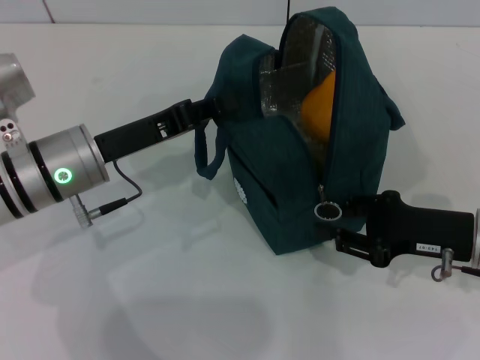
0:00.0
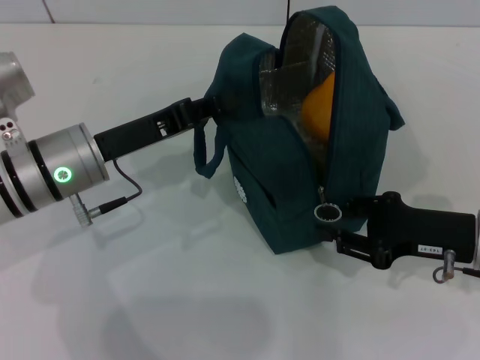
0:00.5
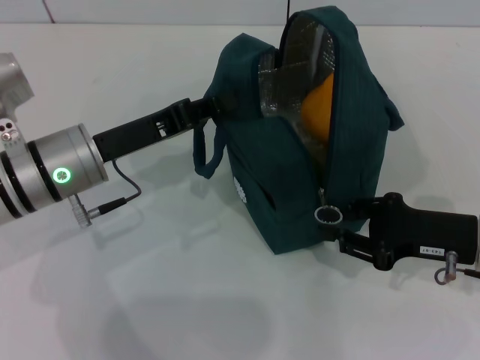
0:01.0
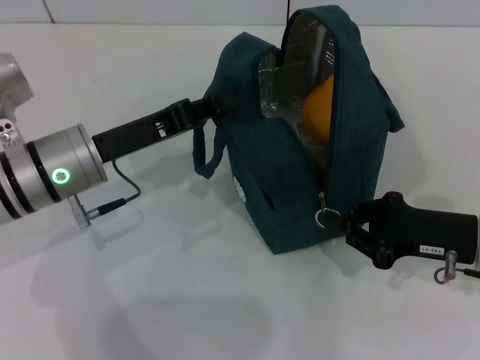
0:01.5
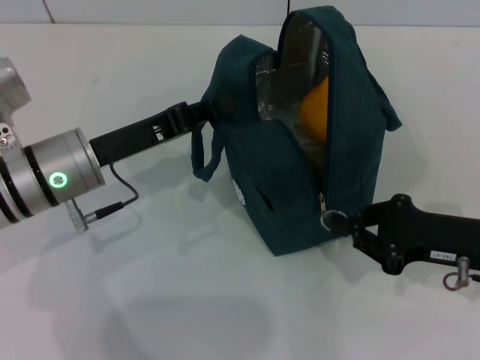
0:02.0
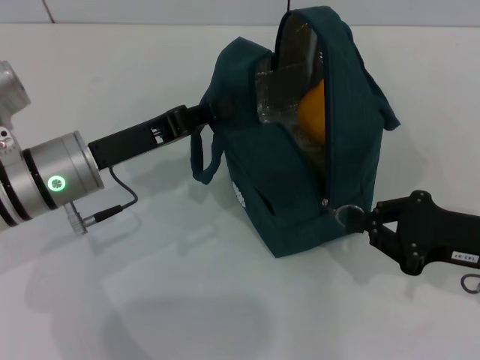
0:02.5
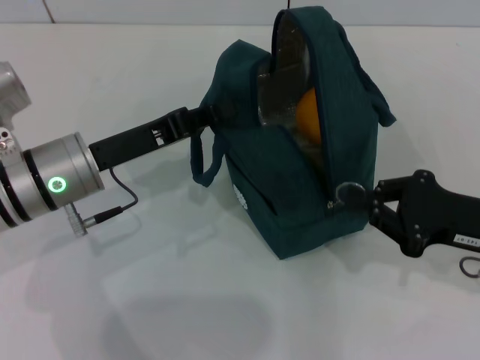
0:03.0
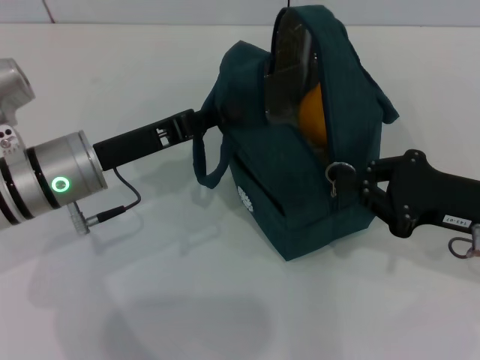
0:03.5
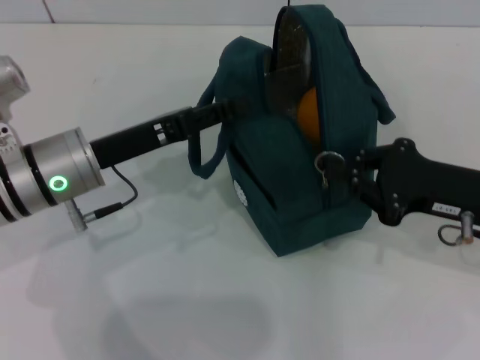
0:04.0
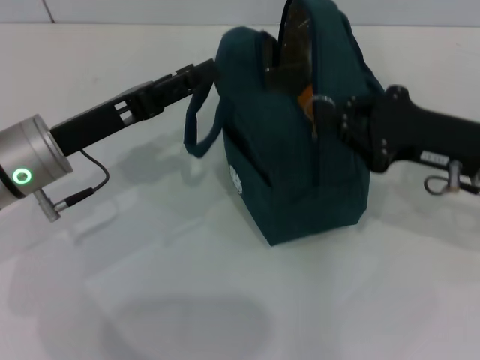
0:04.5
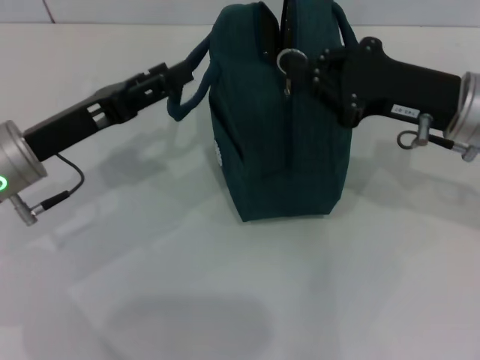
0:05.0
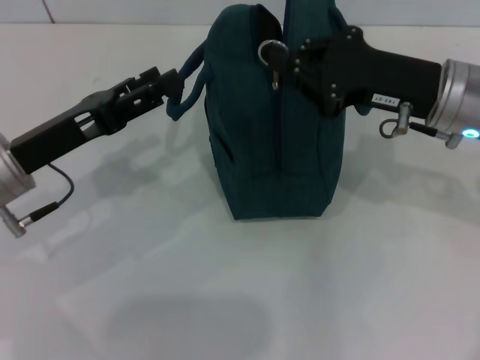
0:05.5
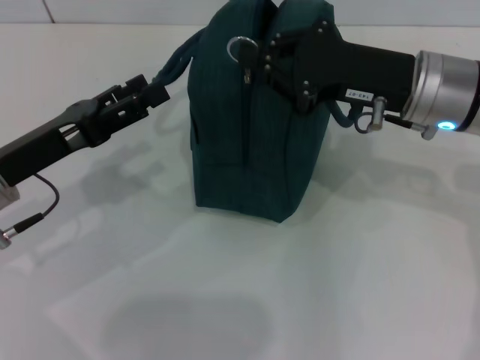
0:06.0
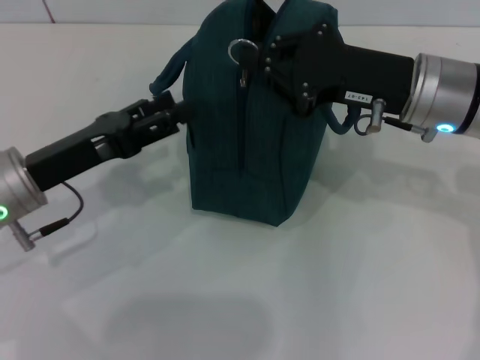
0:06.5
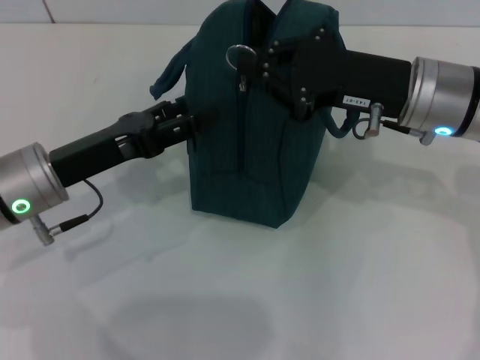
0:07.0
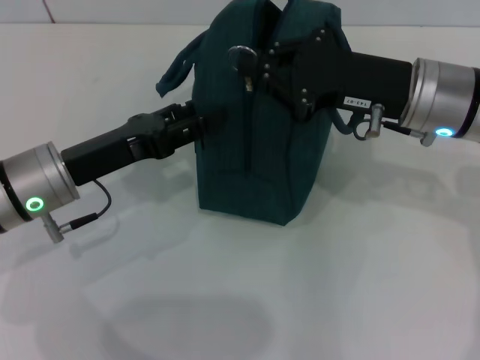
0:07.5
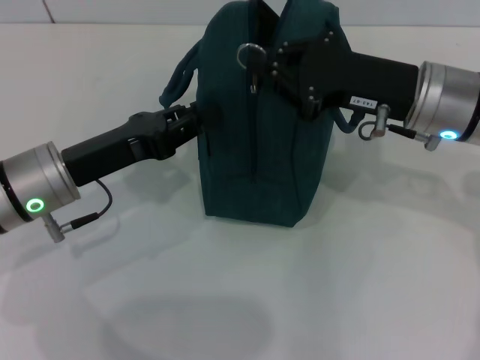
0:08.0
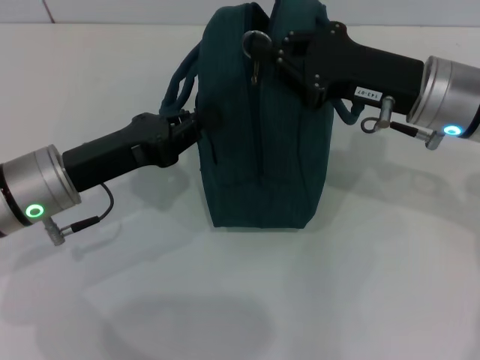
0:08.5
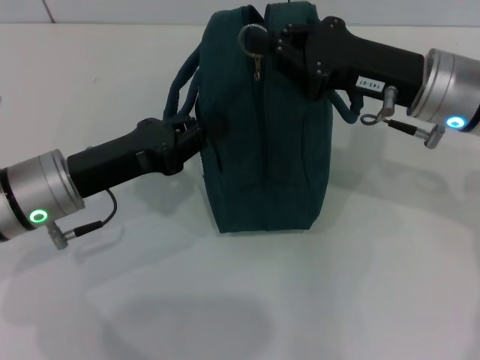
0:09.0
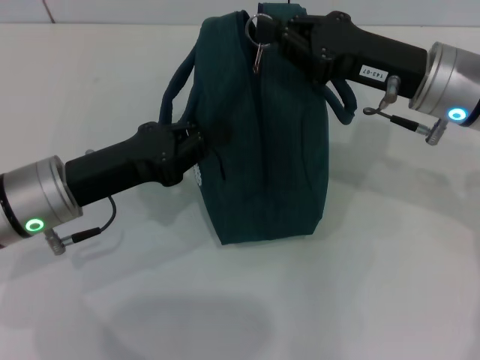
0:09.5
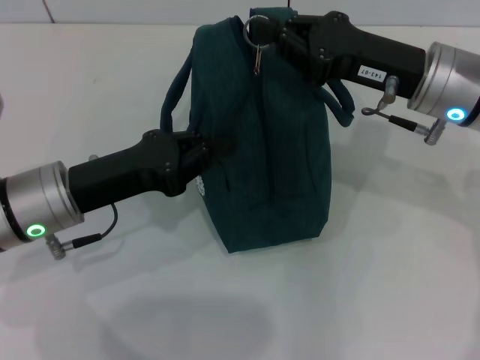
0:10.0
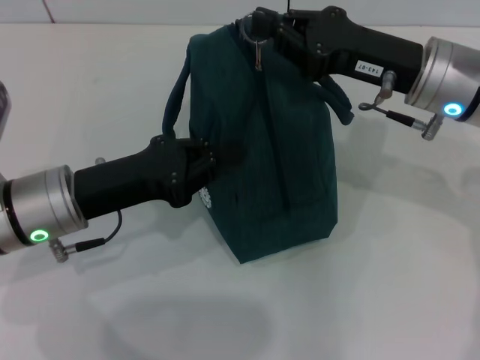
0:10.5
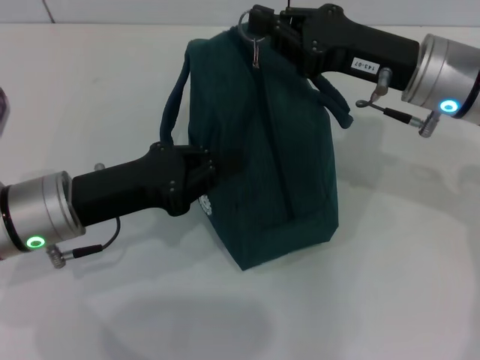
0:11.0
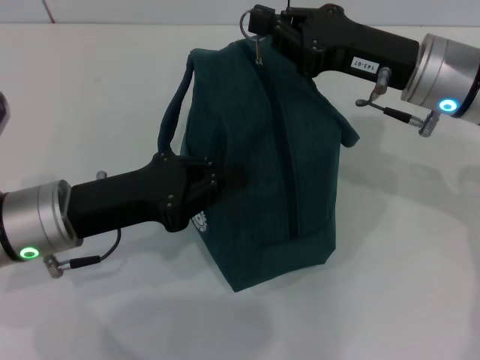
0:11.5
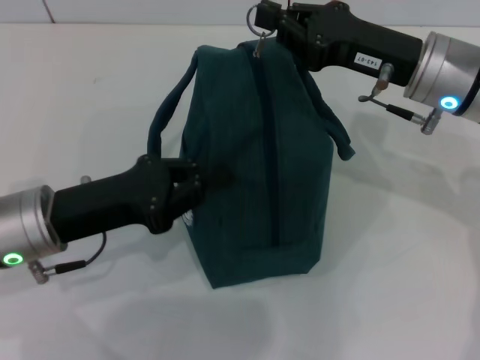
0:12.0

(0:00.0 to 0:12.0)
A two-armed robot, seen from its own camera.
Step, 0:00.0 - 0:04.5: Hold the lunch bag with your left hand.
0:00.0 - 0:02.0: The right gripper closes up.
0:02.0 - 0:04.0: The left gripper opens up.
0:04.0 - 0:06.0: The left gripper goes about 5 cm to the left, and opens its fingers. Meanwhile the right gripper is displaced to the left, forward and upward by roughly 10 cm.
0:06.0 - 0:08.0: The left gripper closes.
0:08.0 - 0:10.0: The left gripper closes.

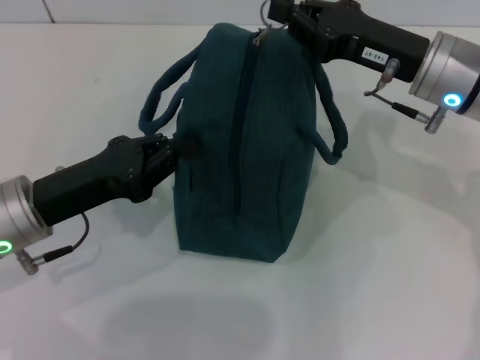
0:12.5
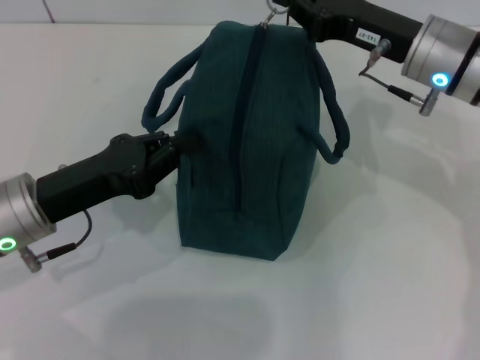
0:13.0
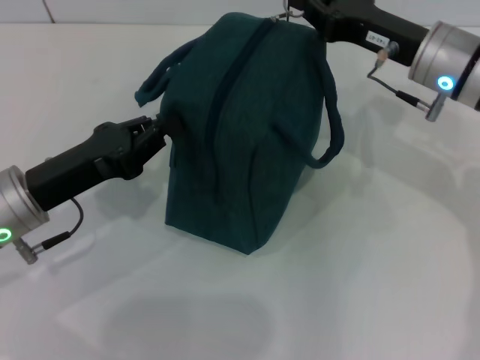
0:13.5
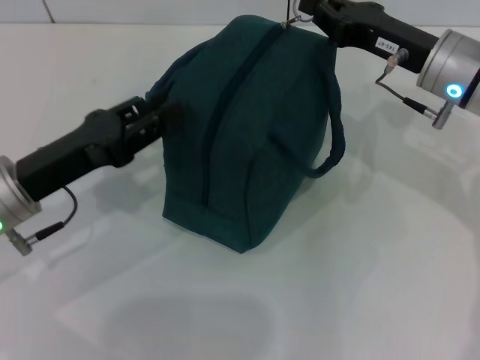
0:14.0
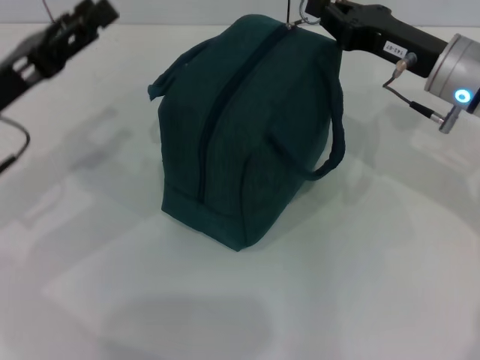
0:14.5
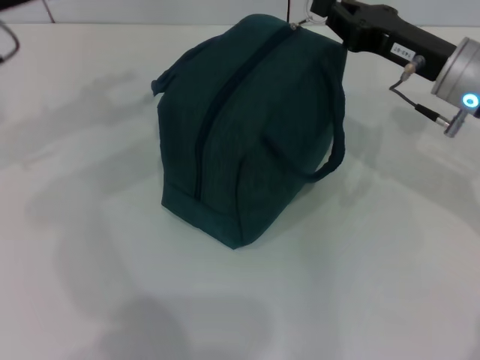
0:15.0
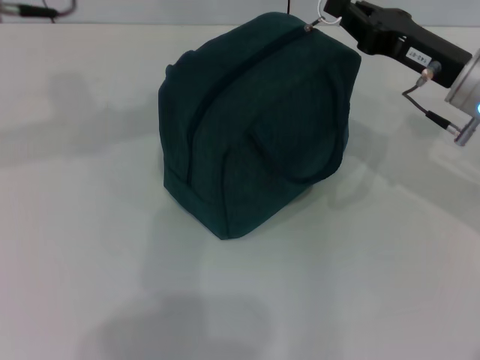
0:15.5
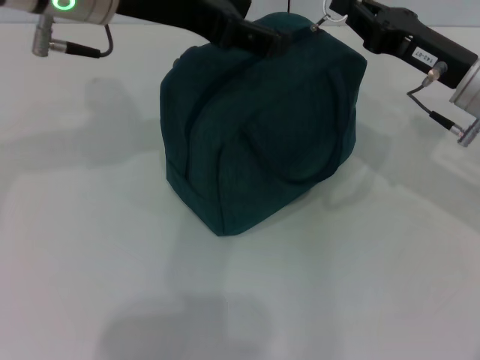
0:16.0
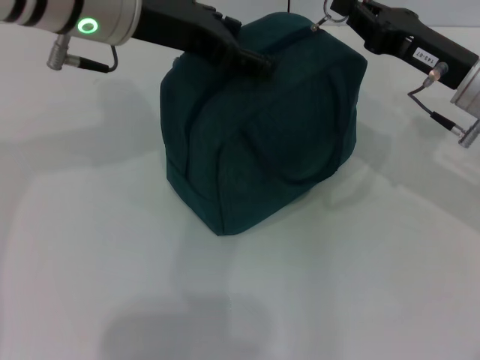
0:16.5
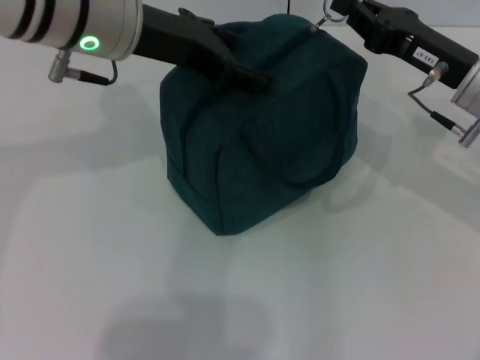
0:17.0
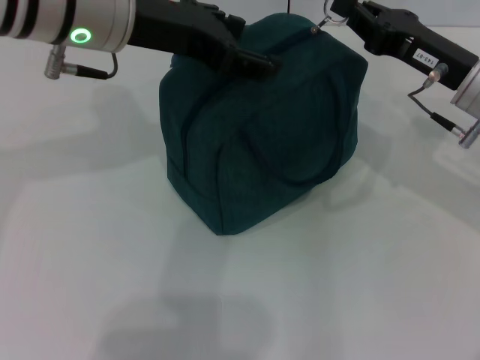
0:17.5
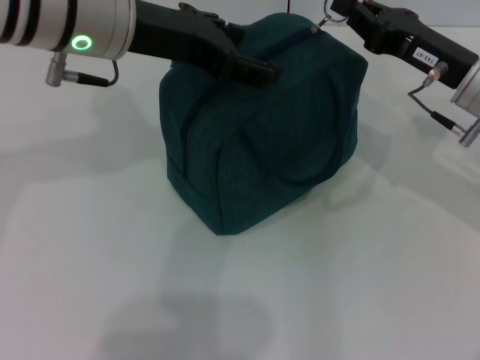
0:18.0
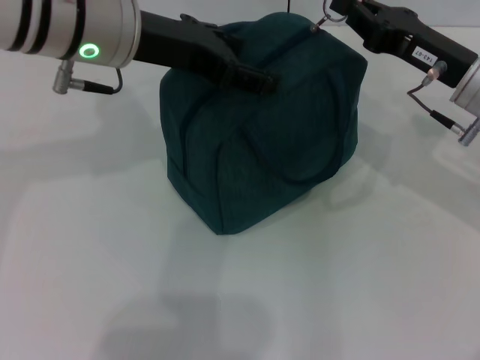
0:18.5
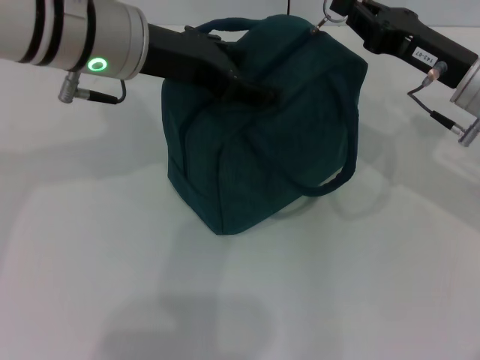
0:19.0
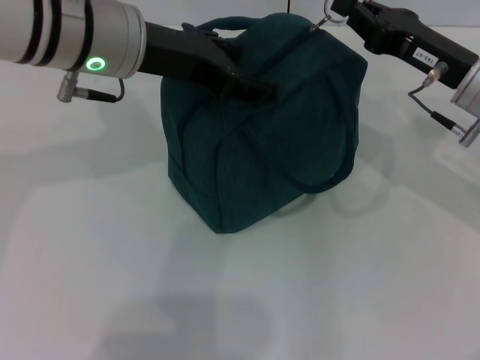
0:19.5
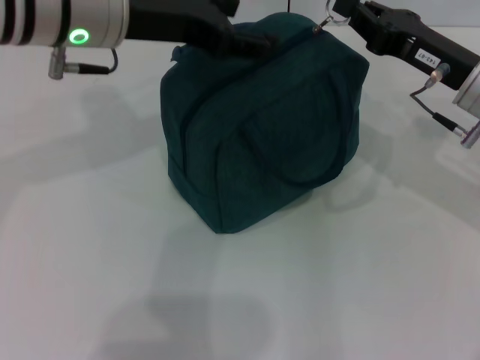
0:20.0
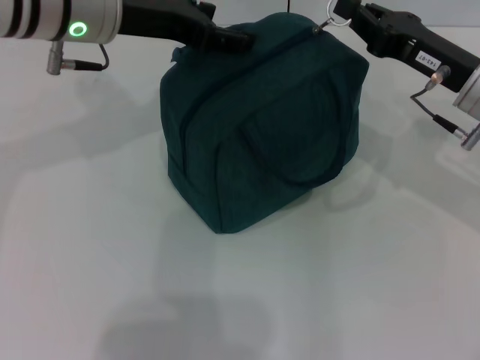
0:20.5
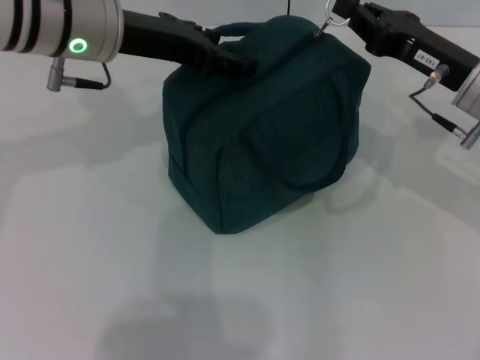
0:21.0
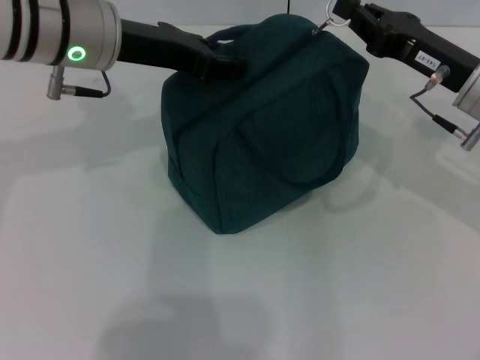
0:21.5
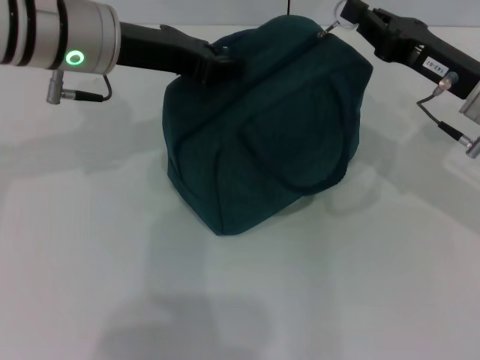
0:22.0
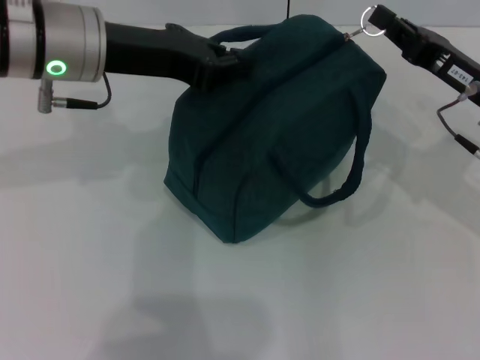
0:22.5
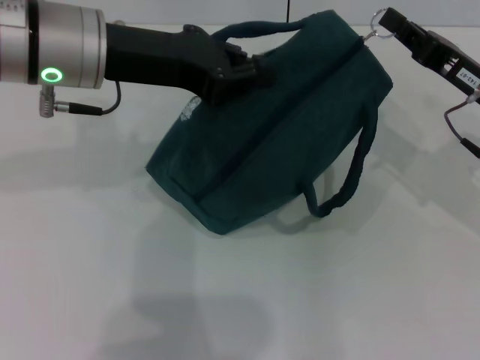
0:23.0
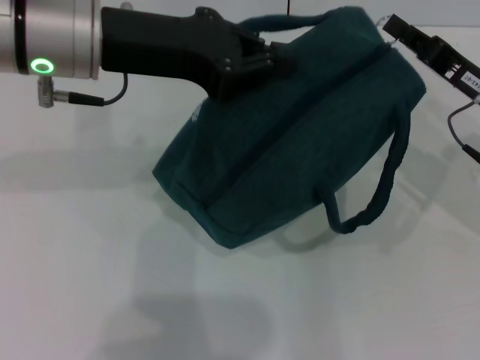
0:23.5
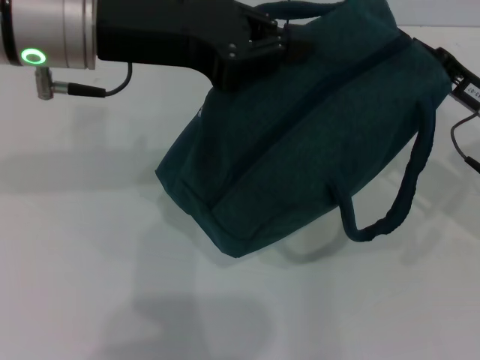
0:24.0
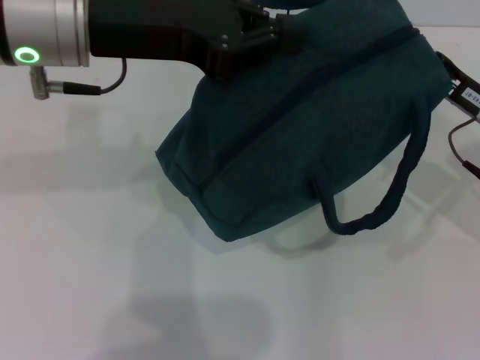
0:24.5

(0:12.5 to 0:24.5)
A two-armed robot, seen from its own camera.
0:12.5 - 0:14.5: The left gripper shifts by approximately 5 cm, and opens up.
0:14.5 - 0:16.5: The left gripper moves to the right, upward and forward, some 20 cm.
0:16.5 - 0:20.5: The grippers make only small movements.
0:20.5 - 0:22.5: The left gripper closes its fingers.
0:22.5 - 0:24.5: The left gripper ends up approximately 5 cm from where it was.

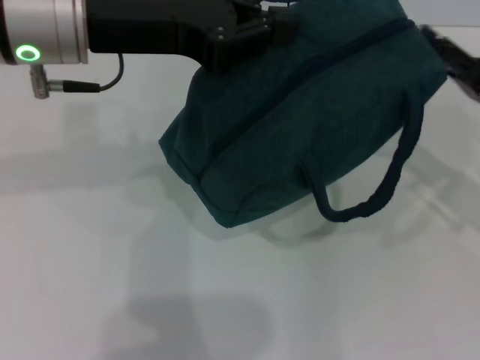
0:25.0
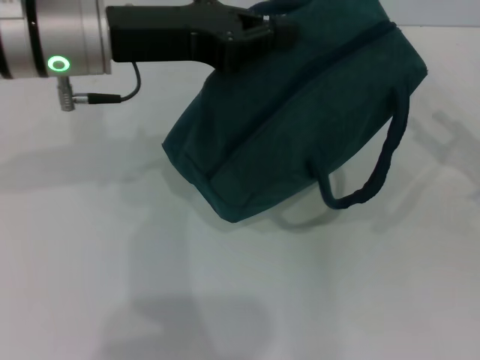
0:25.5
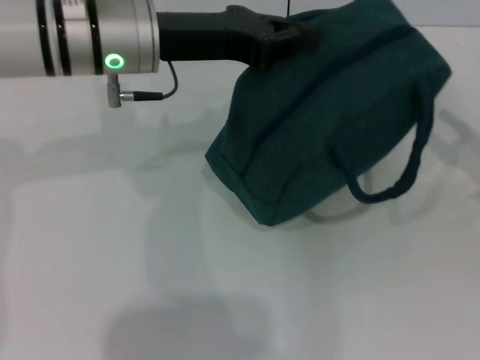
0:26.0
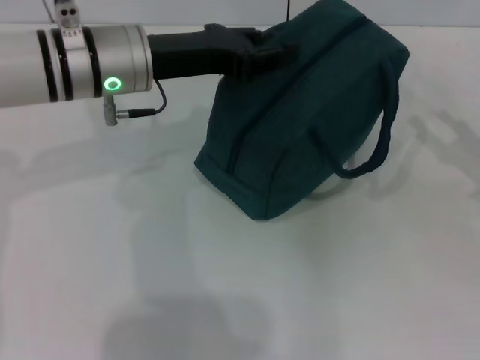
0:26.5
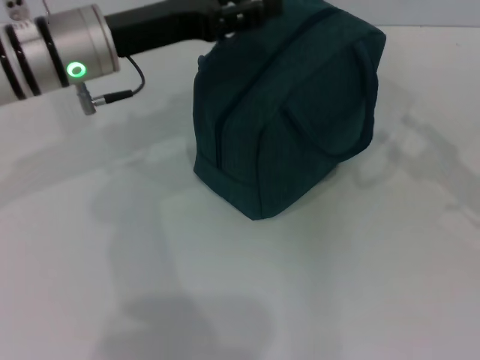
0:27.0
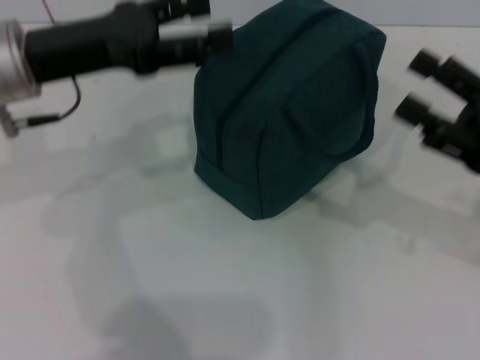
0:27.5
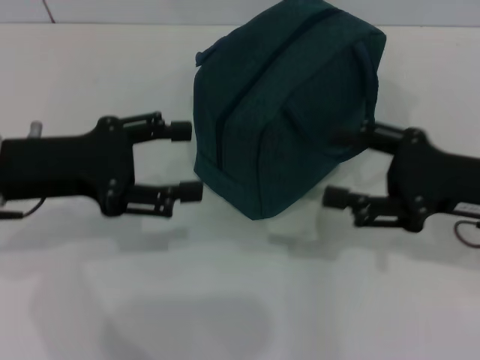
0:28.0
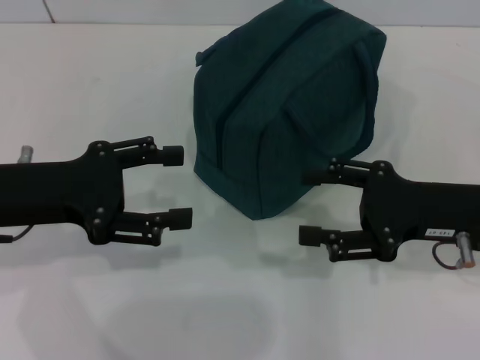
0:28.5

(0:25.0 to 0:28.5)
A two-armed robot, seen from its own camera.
Step, 0:25.5 - 0:27.0: Hold the lunch bag with your left hand.
0:25.0 - 0:27.0: The right gripper ends up approximately 5 cm from where it was, and opens its fingers; the left gripper heads downward, covering some 10 cm, and opens up.
0:27.0 - 0:28.5: The left gripper travels backward and to the left by some 15 cm. The right gripper is displaced to the left by some 10 cm.
